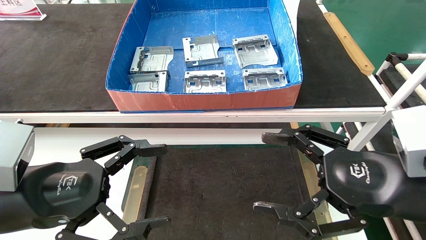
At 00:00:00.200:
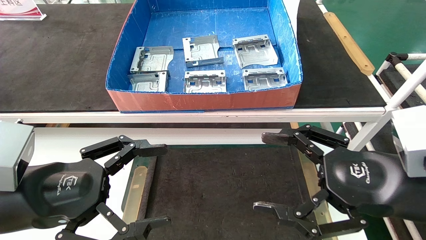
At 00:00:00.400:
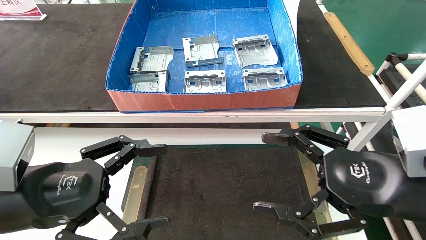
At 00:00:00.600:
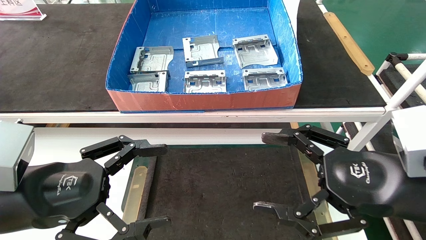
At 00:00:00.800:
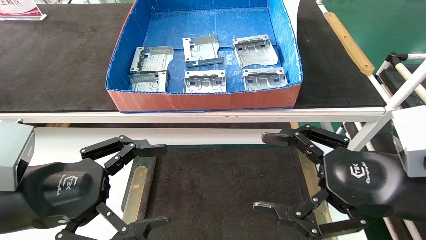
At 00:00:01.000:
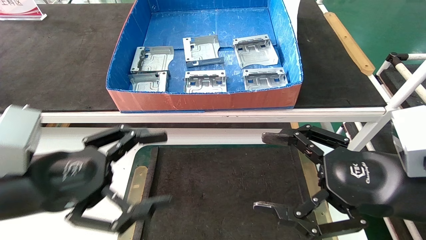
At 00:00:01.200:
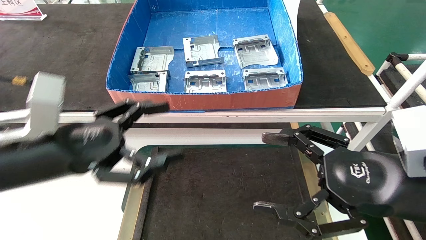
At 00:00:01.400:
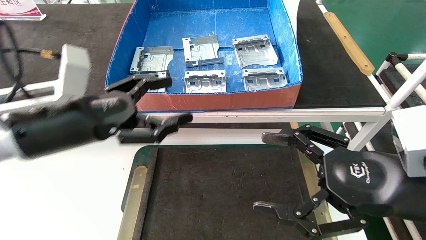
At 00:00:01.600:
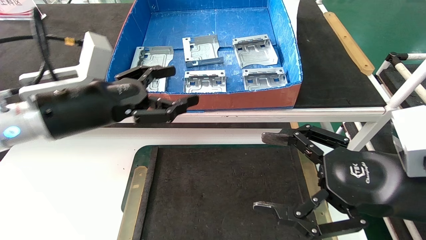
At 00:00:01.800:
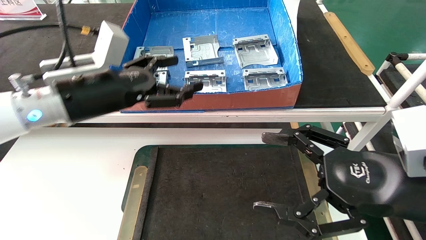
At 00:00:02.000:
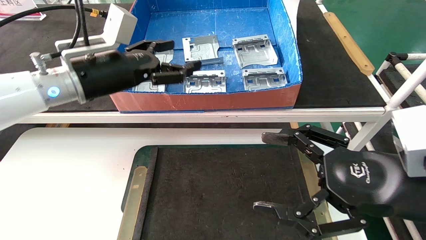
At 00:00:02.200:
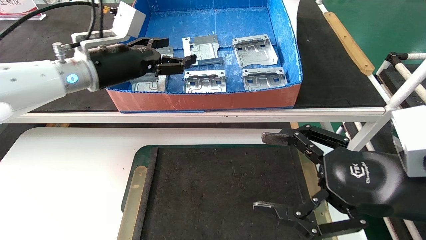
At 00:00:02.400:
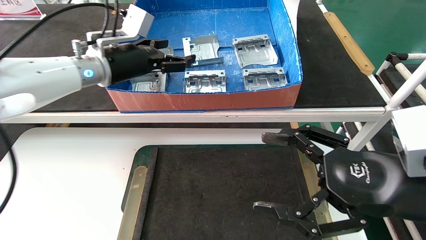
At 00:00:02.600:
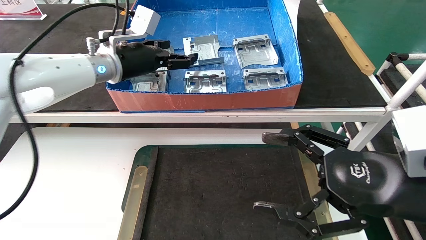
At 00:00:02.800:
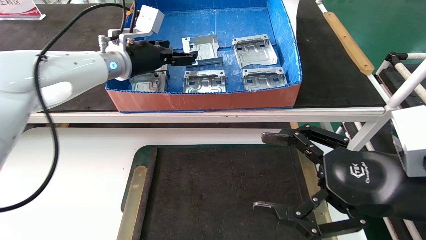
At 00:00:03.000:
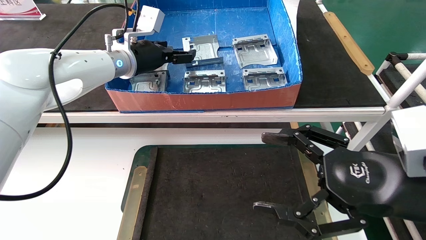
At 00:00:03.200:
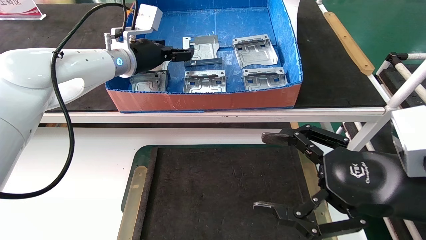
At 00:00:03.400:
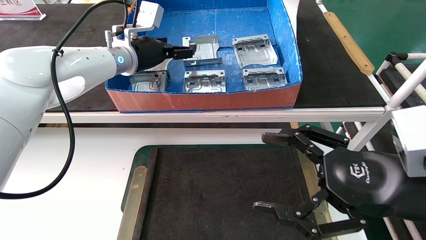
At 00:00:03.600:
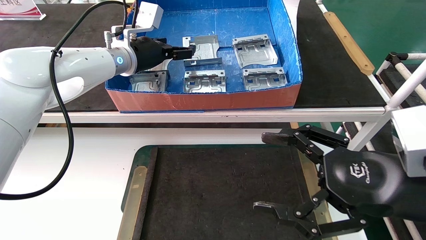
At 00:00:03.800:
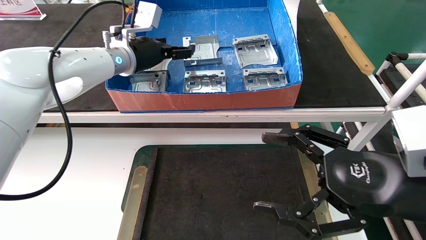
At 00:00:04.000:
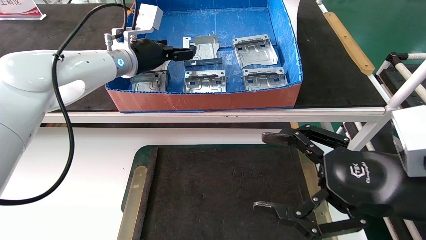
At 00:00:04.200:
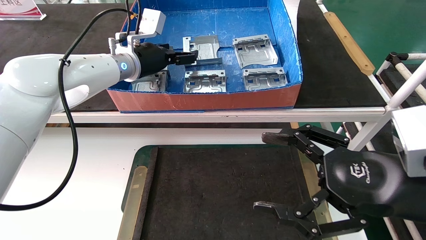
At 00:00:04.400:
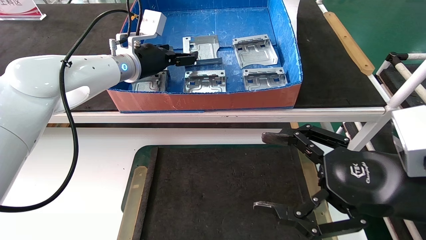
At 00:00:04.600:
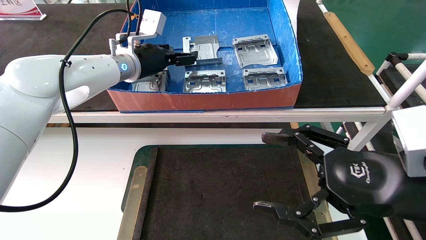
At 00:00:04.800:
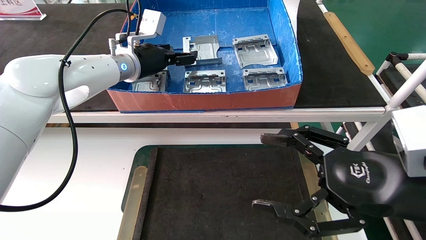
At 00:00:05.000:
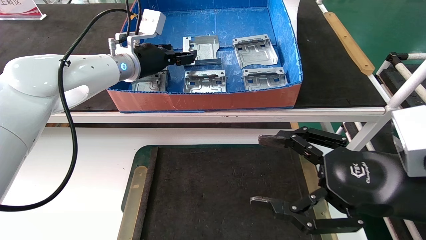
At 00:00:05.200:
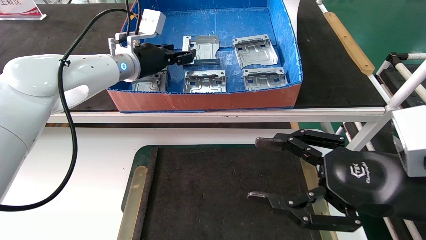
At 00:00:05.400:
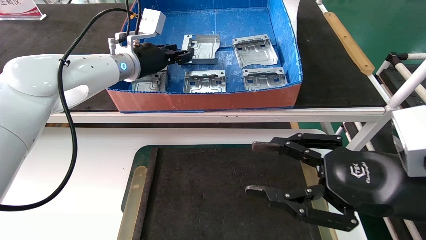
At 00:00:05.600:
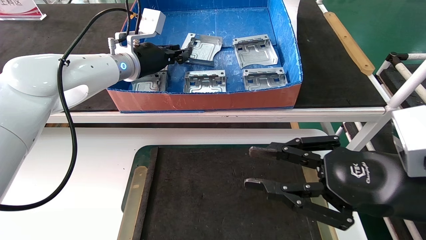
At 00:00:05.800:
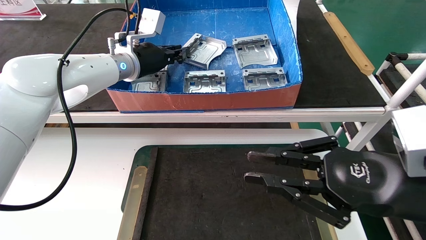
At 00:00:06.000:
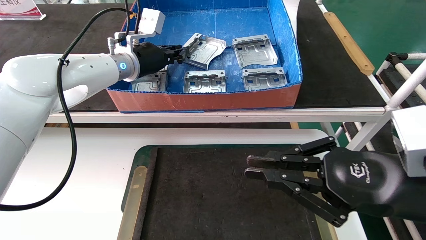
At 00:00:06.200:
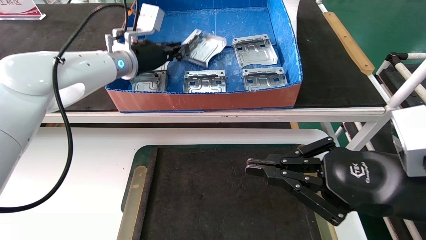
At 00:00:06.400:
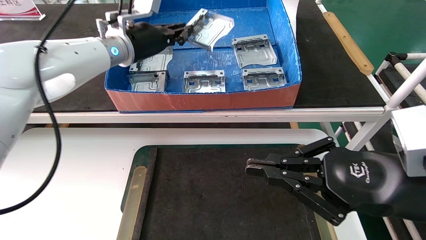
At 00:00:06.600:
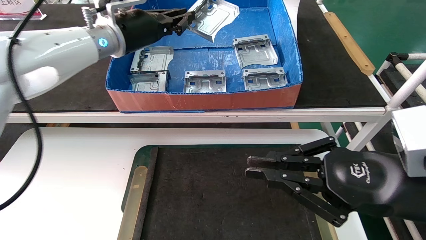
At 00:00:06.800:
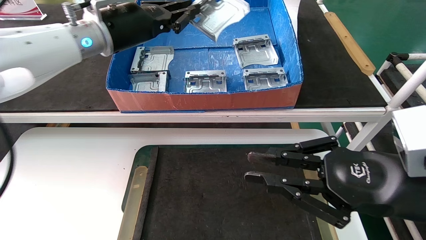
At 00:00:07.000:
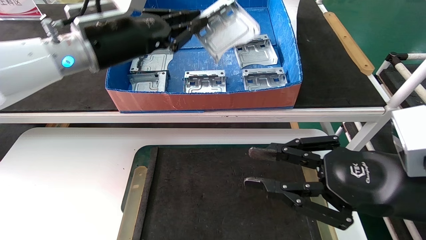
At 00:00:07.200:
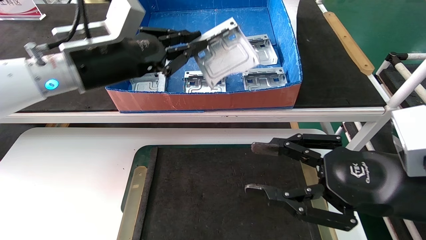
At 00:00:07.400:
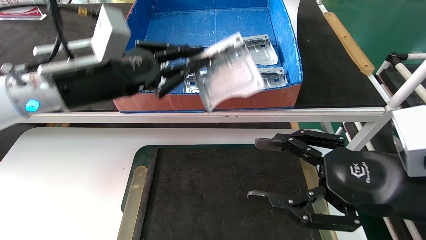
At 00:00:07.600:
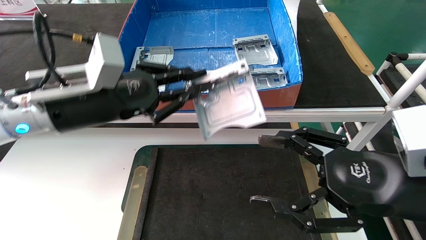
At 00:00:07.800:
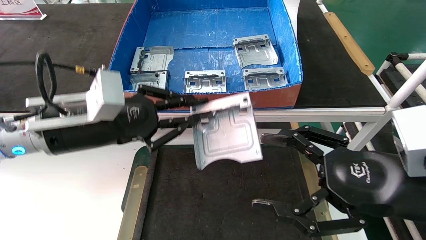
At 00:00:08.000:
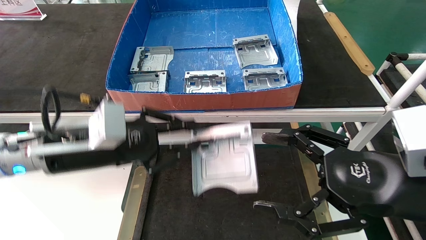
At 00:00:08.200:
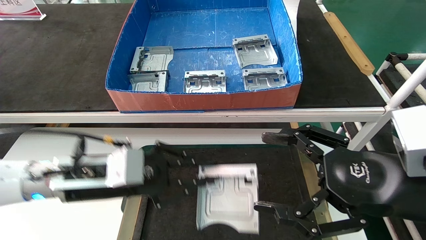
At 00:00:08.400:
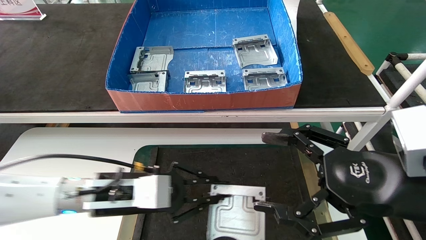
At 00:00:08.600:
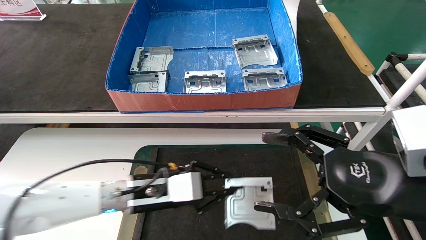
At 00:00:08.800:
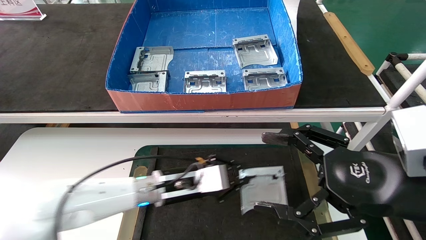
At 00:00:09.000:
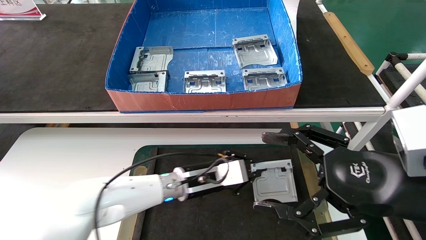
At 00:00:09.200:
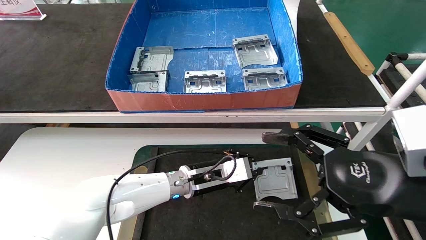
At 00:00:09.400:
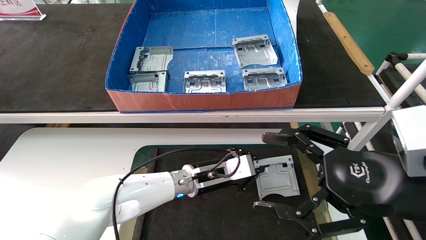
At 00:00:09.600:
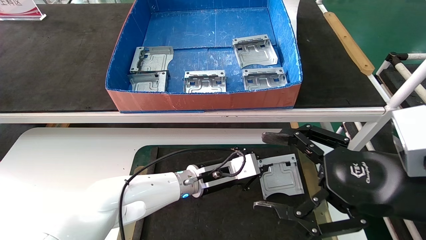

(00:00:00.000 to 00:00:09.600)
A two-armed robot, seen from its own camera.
Task of the whole recording: take the accessories out of the box and place them on the table.
Step, 00:00:01.200 - 00:00:05.800: Pick up the hard drive bracket from the feeding area.
00:00:00.000 - 00:00:01.600: The left gripper is displaced forward and upward by roughly 15 cm.
00:00:01.600 - 00:00:03.200: The left gripper is displaced forward and upward by approximately 20 cm.
00:00:03.200 - 00:00:04.800: Neither gripper changes place.
00:00:04.800 - 00:00:06.400: The right gripper closes up. The left gripper closes its fingers.
00:00:06.400 - 00:00:08.000: The left gripper shifts about 20 cm backward and downward, while the right gripper opens its fingers.
00:00:08.000 - 00:00:09.600: The left gripper goes some 25 cm to the right, downward and forward.

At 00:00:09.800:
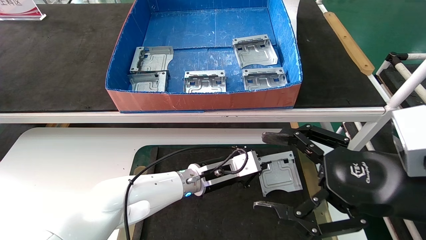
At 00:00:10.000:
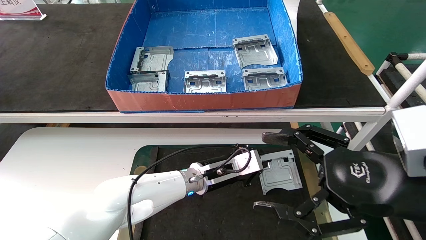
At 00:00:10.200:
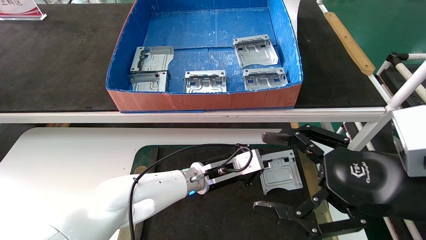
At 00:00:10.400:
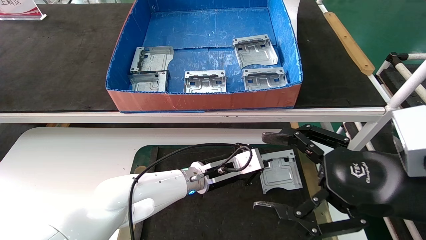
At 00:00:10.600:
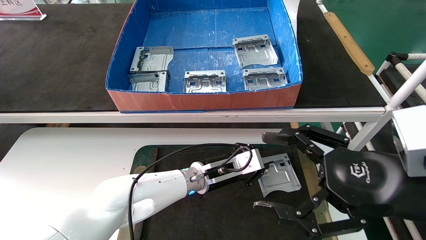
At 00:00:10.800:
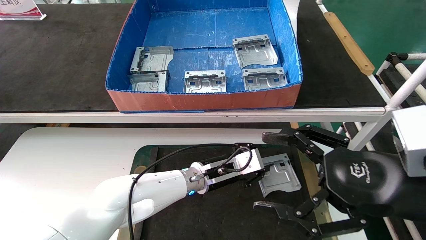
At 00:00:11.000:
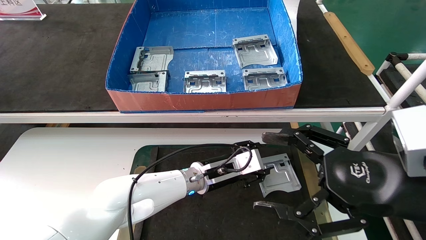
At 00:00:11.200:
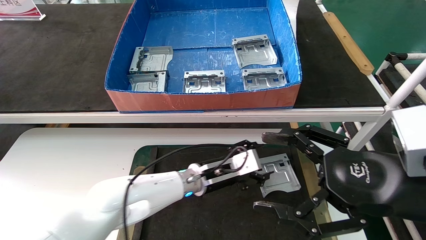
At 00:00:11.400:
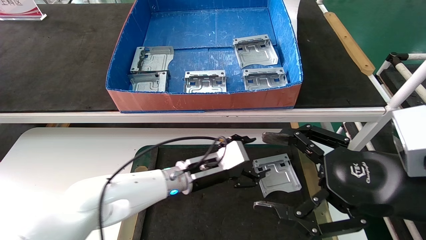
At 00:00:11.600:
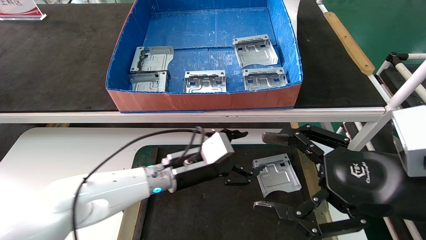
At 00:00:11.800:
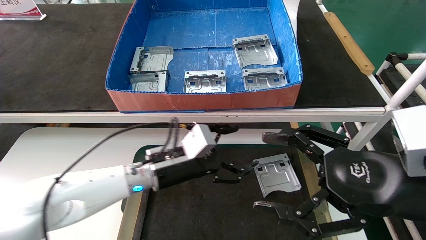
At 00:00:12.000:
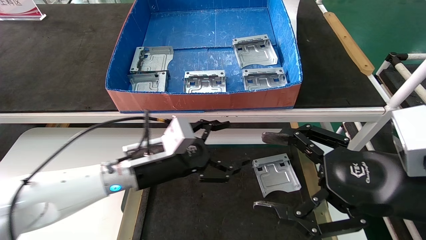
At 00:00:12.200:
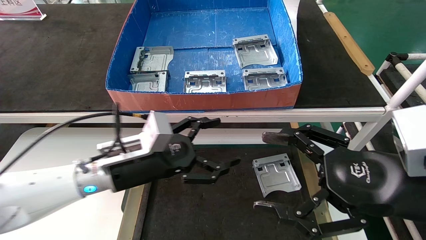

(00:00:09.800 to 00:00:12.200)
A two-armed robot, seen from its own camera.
Task of the whole recording: take the accessories out of the box and place them on the table.
00:00:09.800 - 00:00:11.000: The left gripper opens its fingers.
00:00:11.000 - 00:00:12.200: The left gripper heads to the left, backward and upward, covering approximately 20 cm, and opens its fingers.
